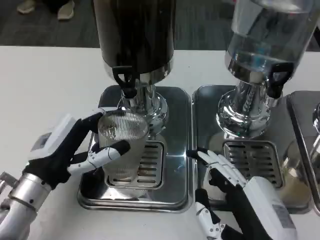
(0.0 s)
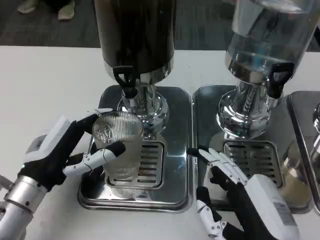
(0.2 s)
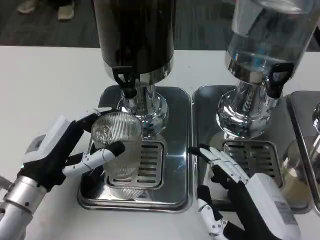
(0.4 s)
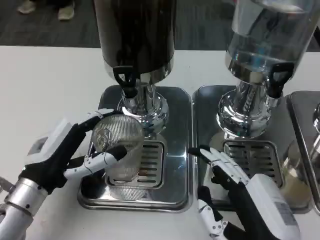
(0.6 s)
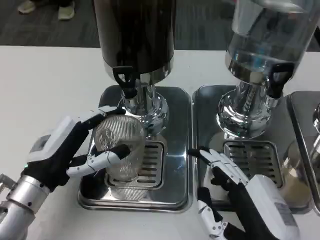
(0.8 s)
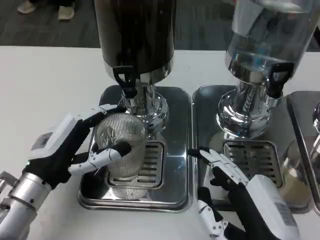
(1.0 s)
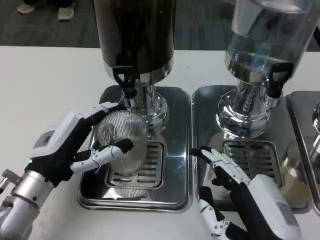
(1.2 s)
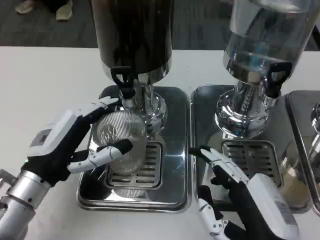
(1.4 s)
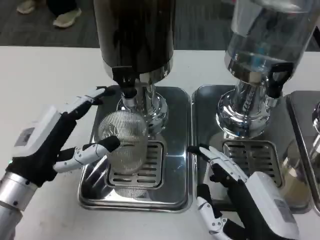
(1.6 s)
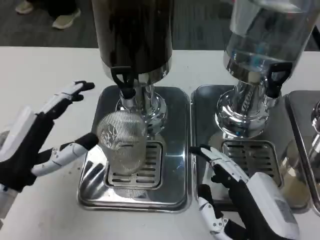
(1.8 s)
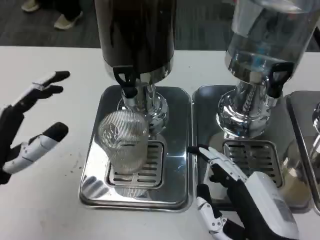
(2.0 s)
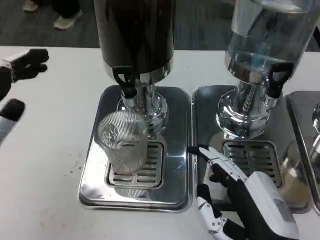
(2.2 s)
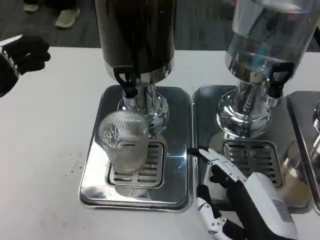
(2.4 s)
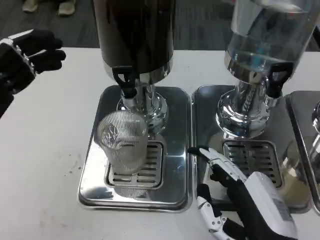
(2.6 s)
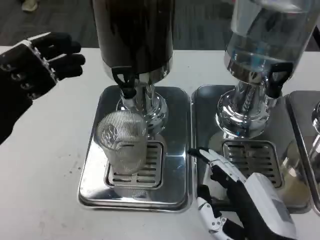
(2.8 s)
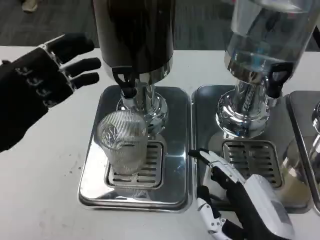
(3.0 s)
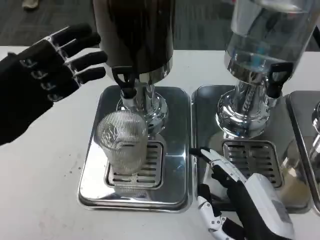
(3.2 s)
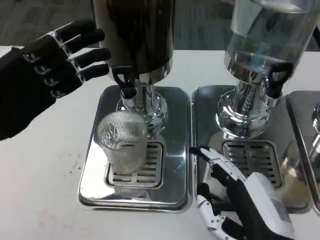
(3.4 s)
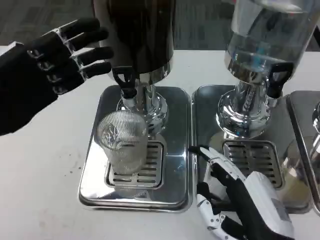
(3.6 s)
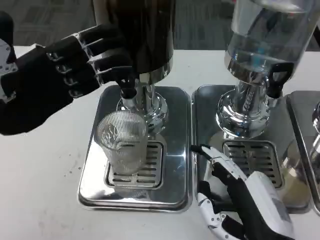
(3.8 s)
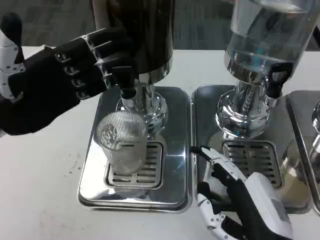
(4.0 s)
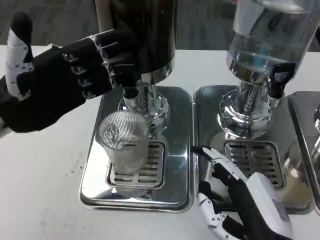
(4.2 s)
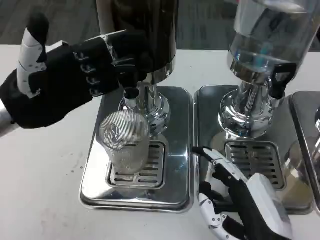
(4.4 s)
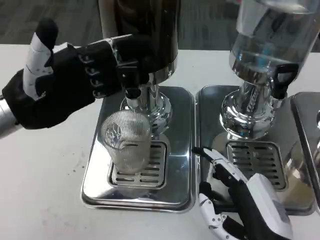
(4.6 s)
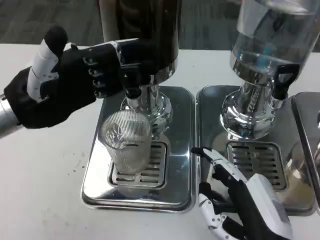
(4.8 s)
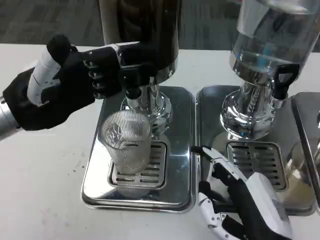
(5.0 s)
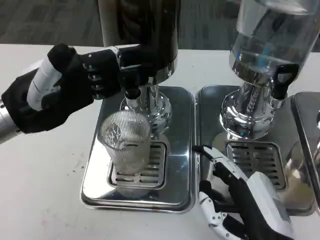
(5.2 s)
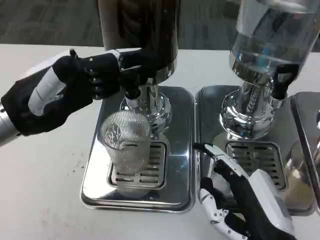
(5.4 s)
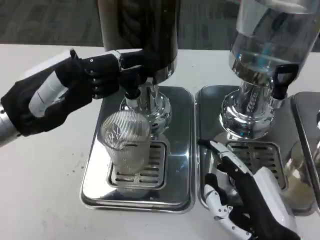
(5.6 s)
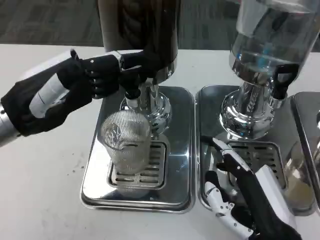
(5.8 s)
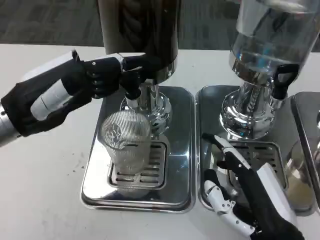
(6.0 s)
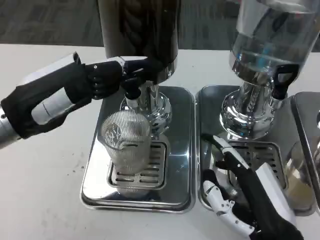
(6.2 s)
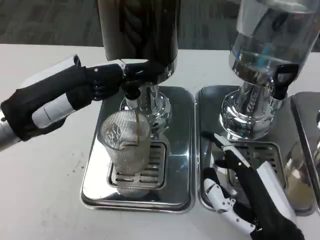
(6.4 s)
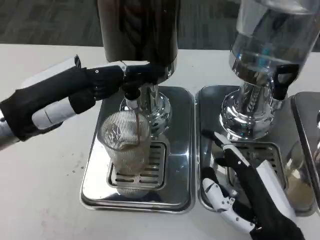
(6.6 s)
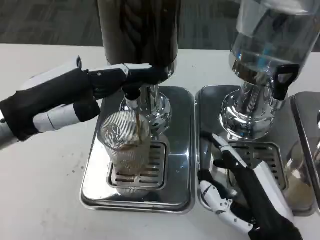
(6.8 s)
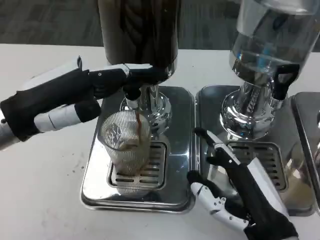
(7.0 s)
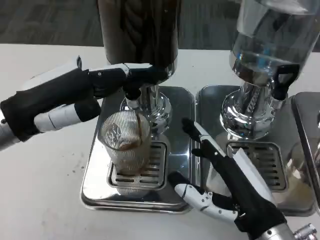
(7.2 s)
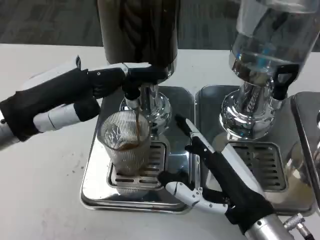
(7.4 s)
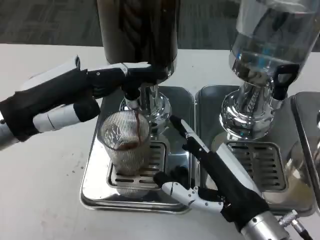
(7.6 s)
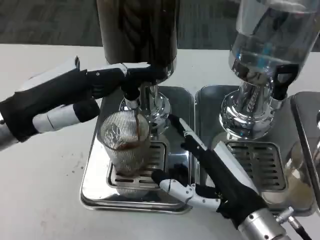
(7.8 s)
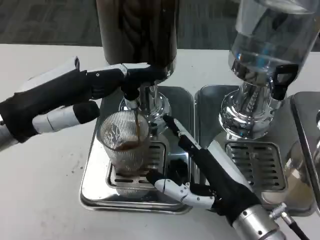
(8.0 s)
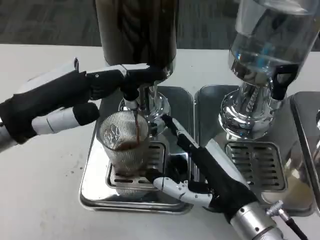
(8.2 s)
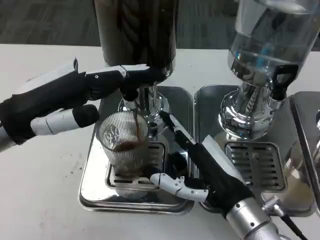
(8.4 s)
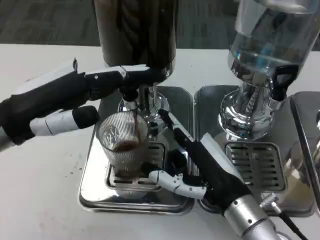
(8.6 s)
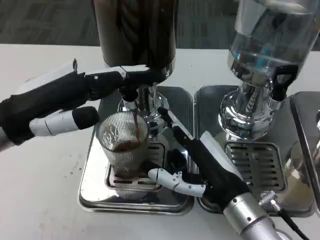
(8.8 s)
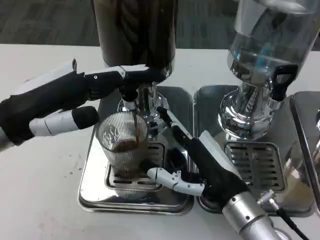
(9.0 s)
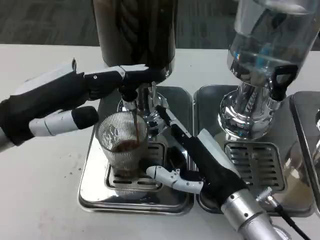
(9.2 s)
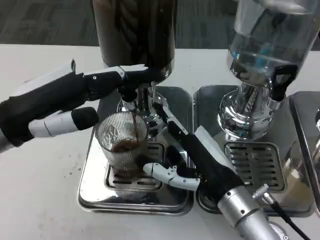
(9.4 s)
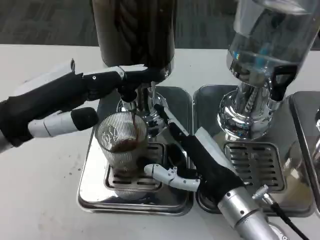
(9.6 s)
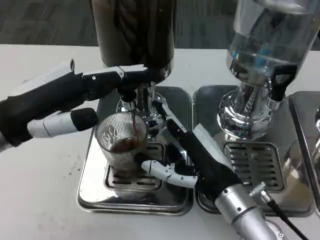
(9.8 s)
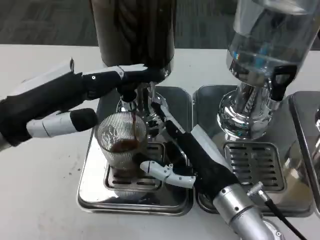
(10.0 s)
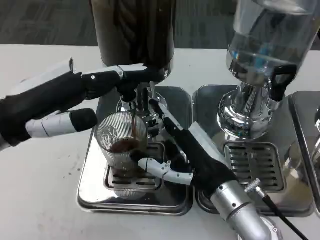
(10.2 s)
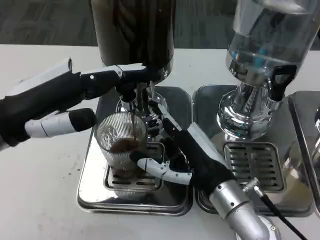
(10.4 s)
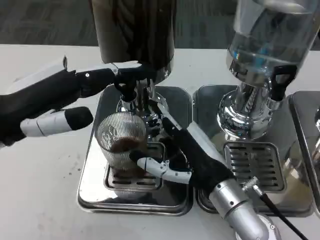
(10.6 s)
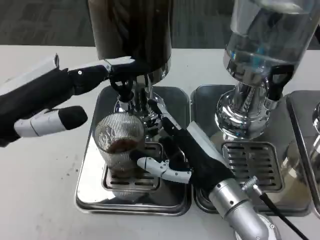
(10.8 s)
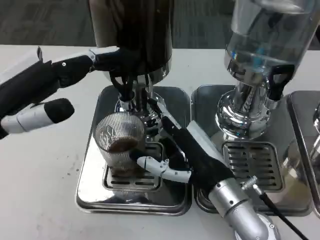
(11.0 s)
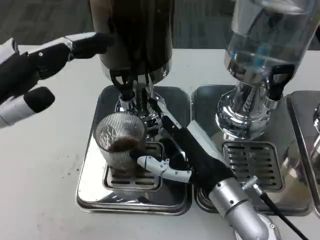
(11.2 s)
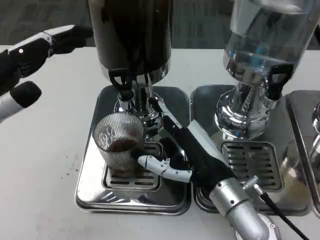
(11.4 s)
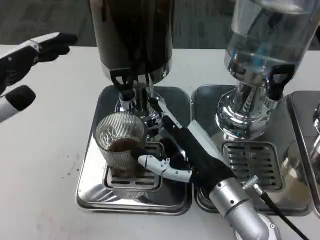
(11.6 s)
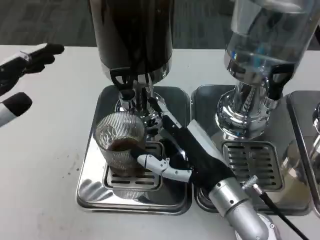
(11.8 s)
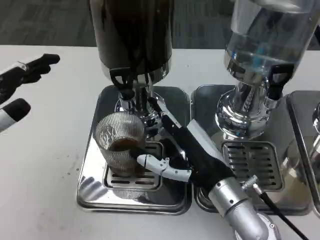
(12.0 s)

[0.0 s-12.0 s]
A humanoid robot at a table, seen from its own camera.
Task of the whole recording: Grasp the cup under the faucet to collect the drink, then remove the cup.
0.0 to 1.6 s: The hands move only a little.
1.6 to 3.0 s: The left hand goes approximately 10 cm upward and to the left.
3.0 to 4.4 s: The left hand shifts by roughly 5 cm.
6.0 to 7.6 s: The right hand changes place by approximately 5 cm.
9.0 to 10.4 s: The hands make only small movements.
10.4 to 12.0 s: The left hand shifts some 10 cm to the left and backward.

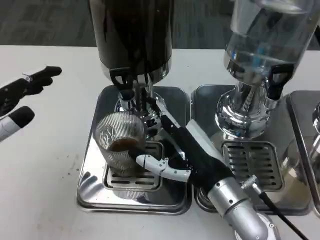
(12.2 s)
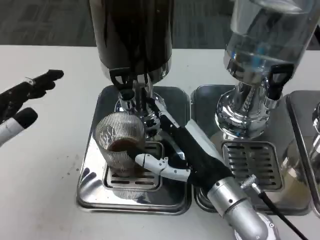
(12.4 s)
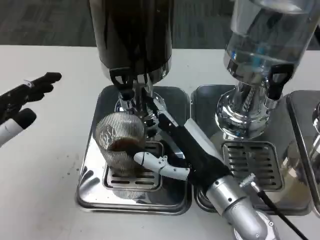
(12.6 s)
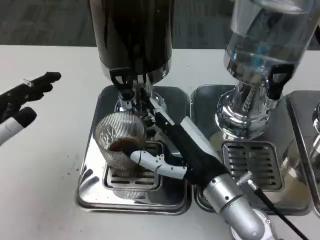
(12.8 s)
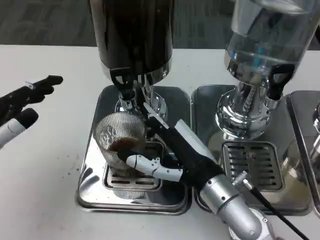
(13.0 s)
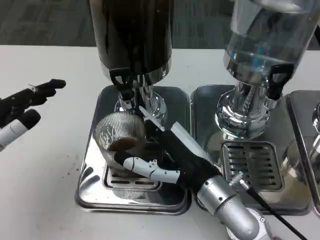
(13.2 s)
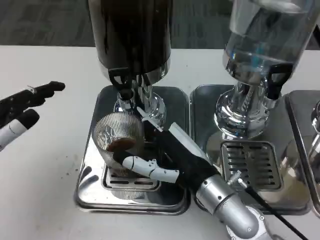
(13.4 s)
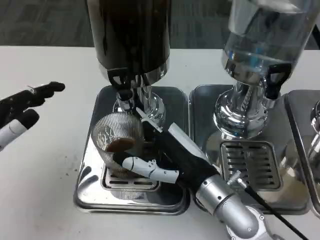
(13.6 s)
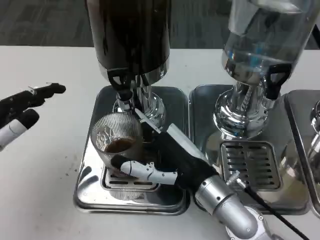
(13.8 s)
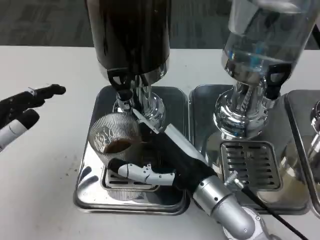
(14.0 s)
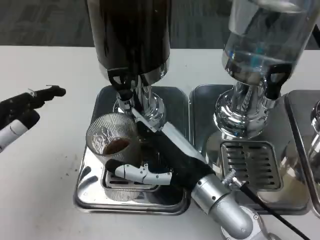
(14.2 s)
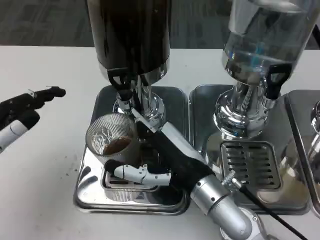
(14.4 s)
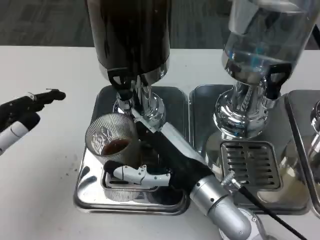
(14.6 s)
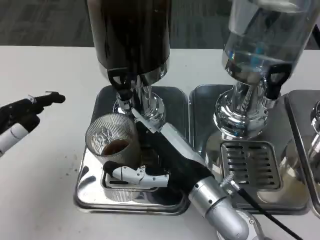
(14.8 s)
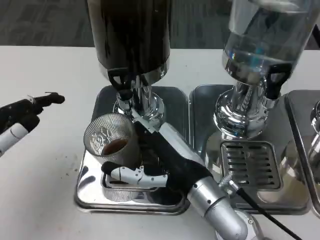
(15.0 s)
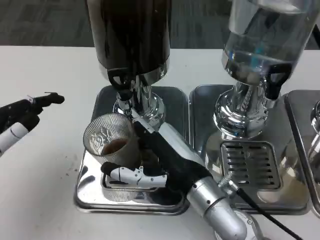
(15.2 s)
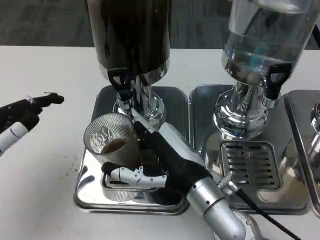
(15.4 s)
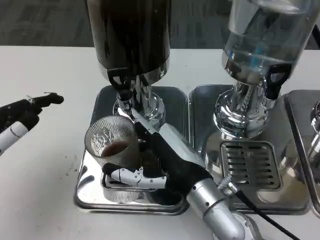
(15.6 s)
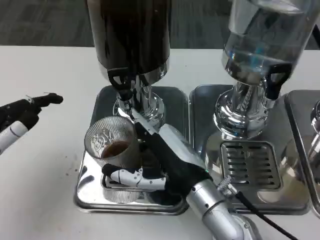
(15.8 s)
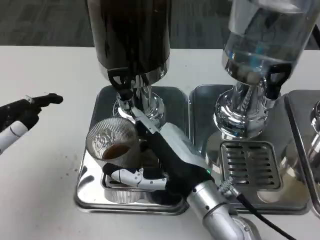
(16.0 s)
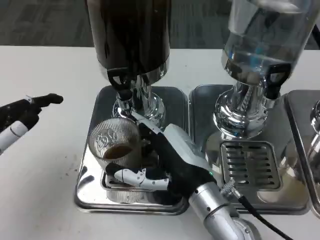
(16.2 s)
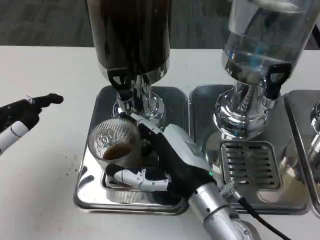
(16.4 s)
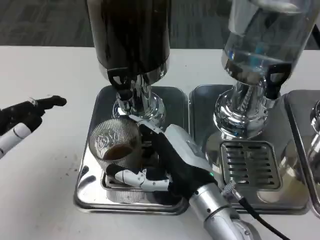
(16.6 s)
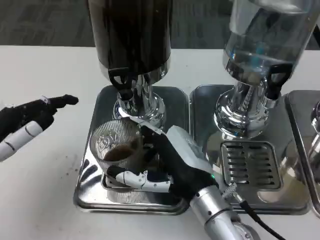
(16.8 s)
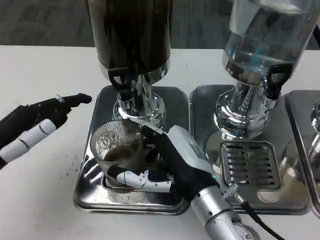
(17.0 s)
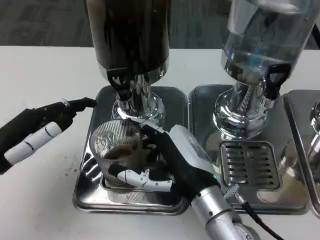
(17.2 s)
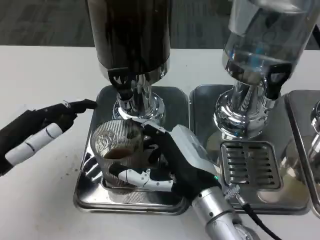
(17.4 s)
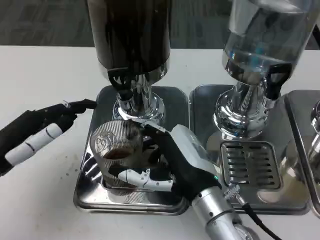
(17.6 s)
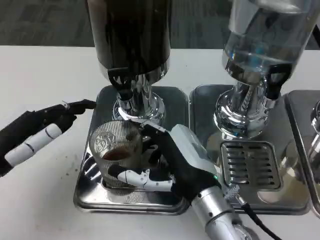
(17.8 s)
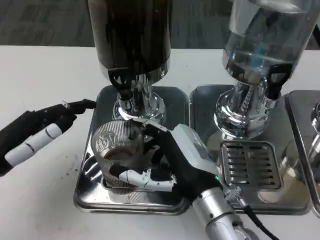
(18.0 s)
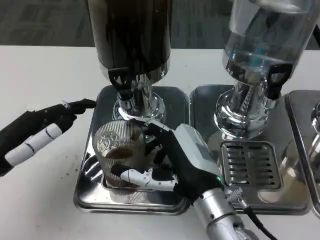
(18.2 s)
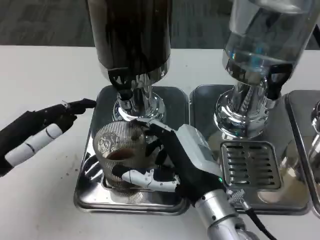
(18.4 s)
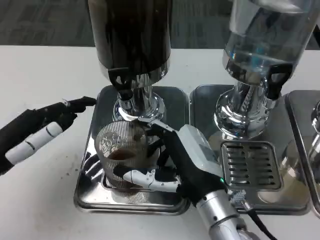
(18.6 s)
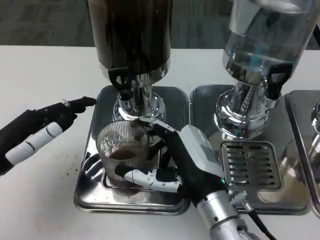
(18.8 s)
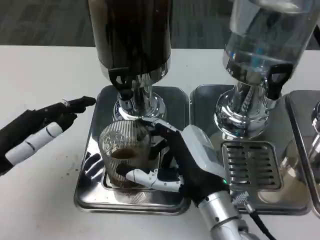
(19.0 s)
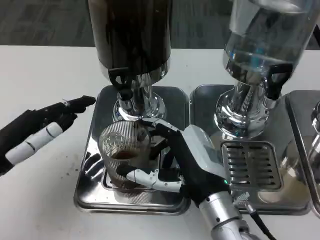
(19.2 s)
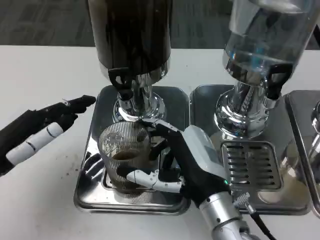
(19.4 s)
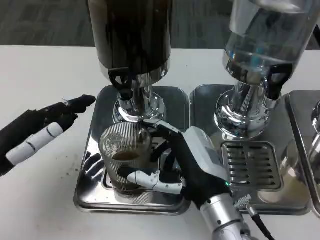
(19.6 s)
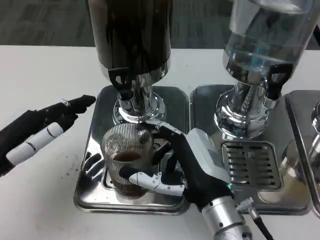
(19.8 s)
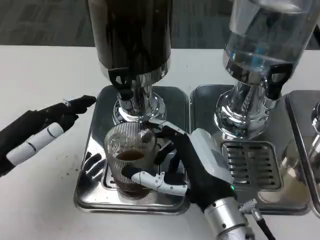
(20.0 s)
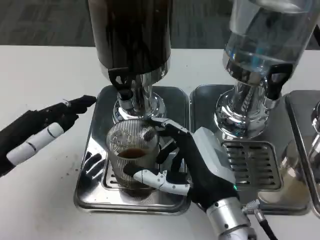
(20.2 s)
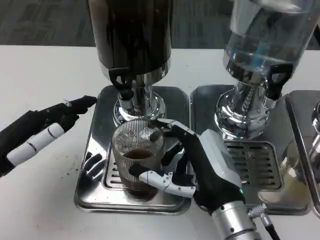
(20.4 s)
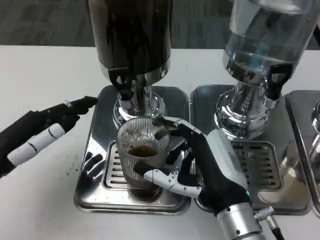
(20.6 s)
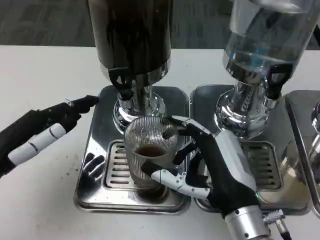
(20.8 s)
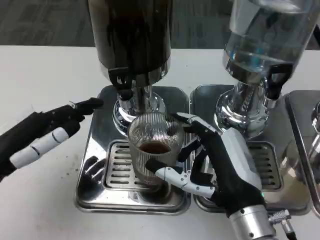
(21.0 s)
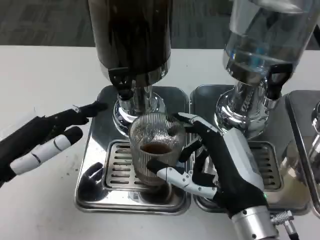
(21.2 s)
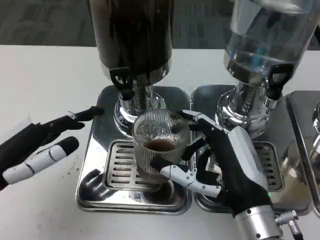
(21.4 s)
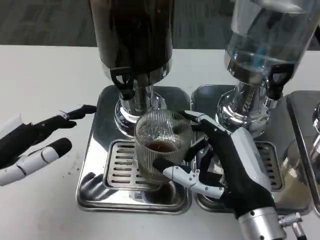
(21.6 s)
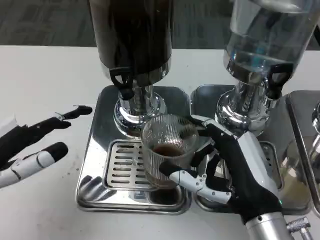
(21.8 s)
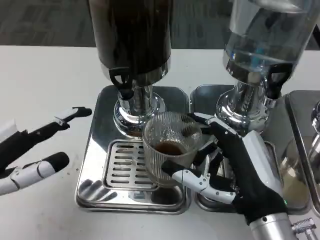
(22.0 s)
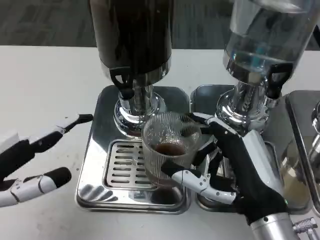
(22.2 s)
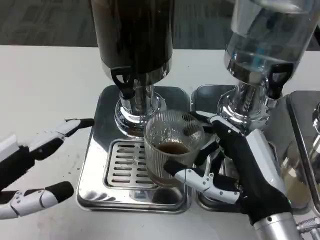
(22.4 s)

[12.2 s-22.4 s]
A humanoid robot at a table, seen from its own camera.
Task of the whole recording: Grasp the cup under the faucet to collect the drink, then remove the cup.
13.6 to 18.0 s: There are only small adjustments of the hands.
18.0 to 19.4 s: Neither hand changes place.
21.0 to 22.4 s: The left hand travels backward by approximately 5 cm.
